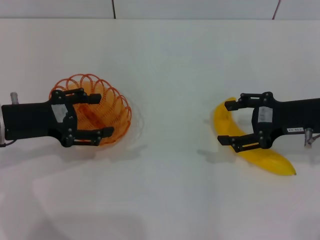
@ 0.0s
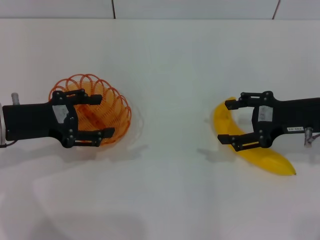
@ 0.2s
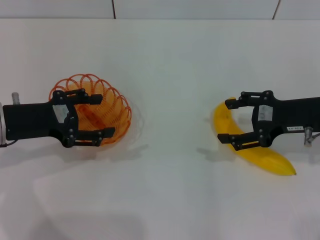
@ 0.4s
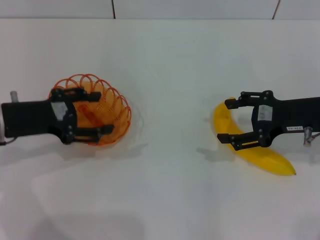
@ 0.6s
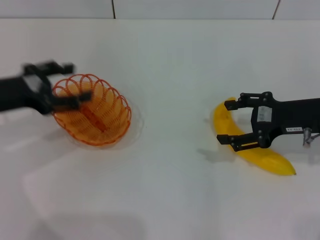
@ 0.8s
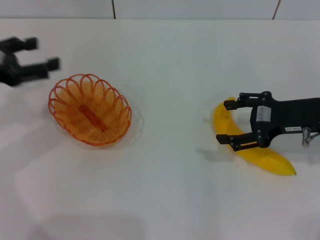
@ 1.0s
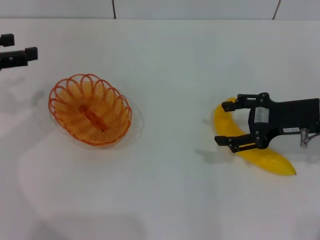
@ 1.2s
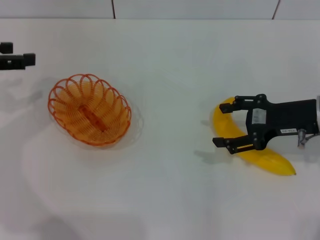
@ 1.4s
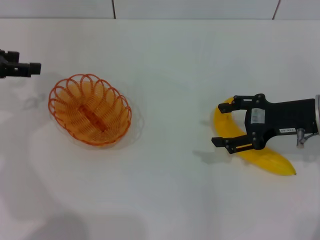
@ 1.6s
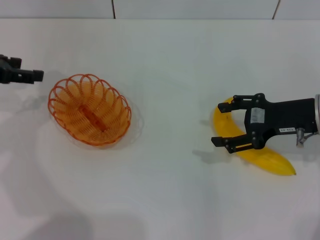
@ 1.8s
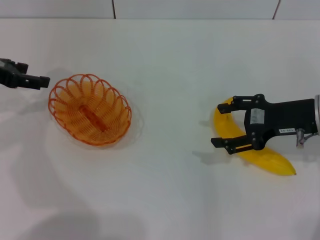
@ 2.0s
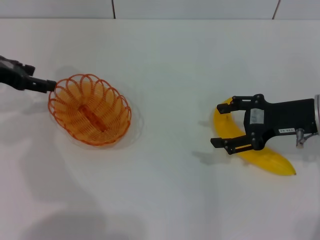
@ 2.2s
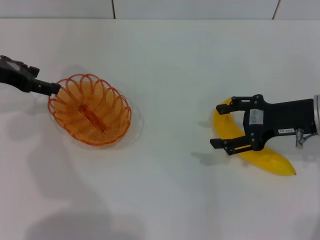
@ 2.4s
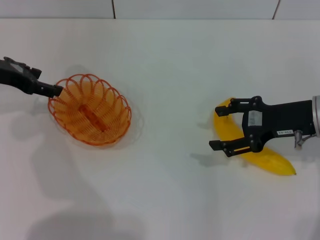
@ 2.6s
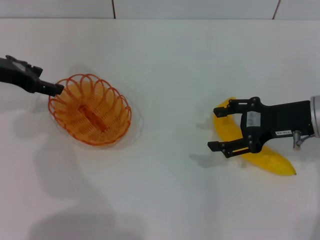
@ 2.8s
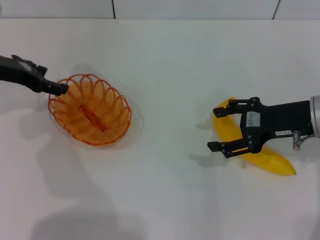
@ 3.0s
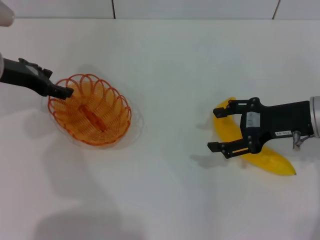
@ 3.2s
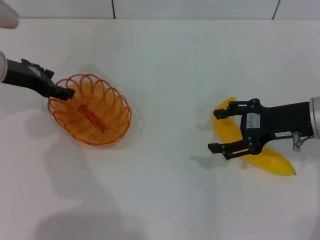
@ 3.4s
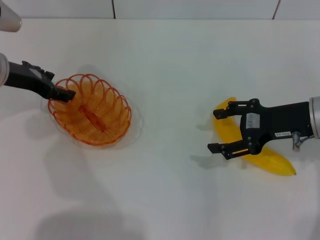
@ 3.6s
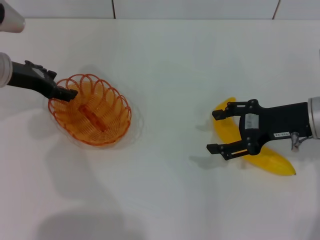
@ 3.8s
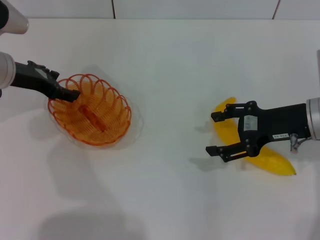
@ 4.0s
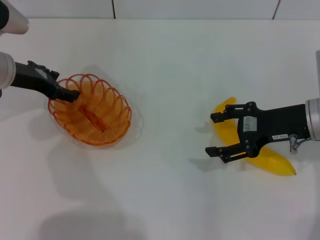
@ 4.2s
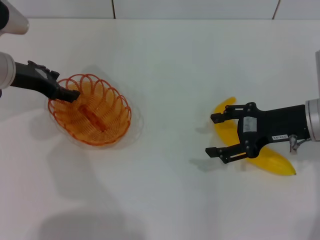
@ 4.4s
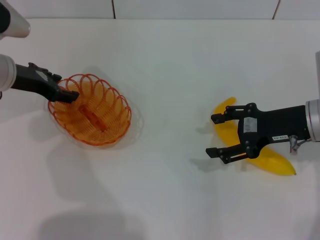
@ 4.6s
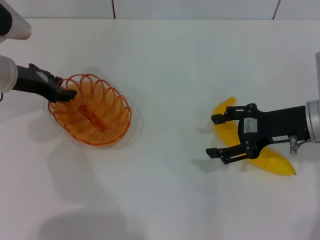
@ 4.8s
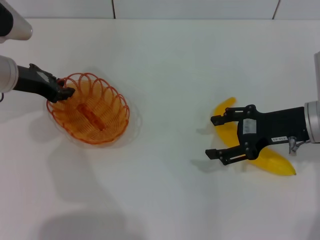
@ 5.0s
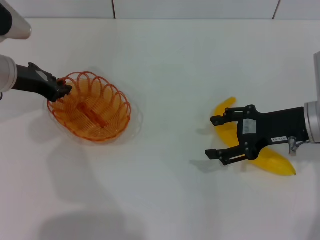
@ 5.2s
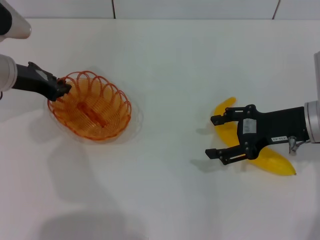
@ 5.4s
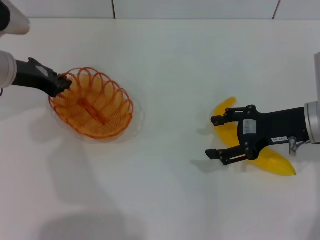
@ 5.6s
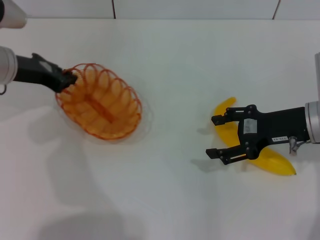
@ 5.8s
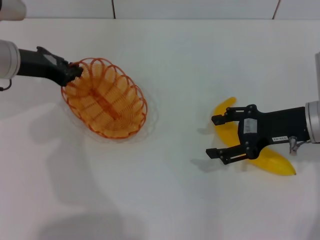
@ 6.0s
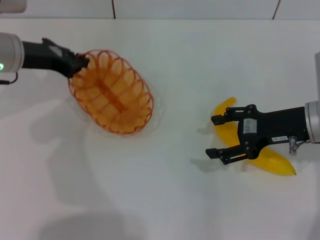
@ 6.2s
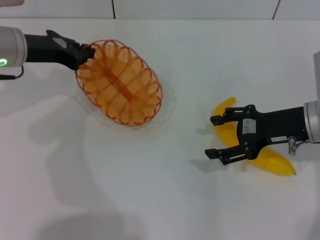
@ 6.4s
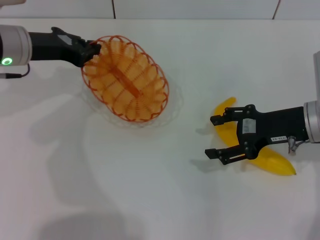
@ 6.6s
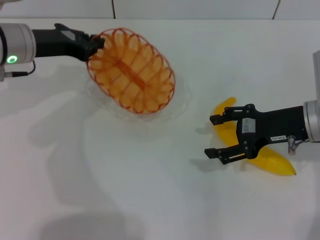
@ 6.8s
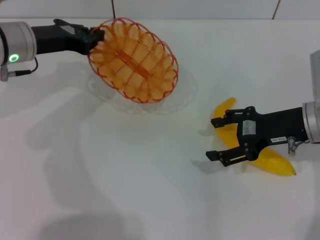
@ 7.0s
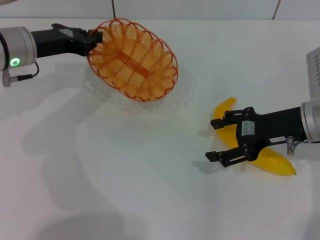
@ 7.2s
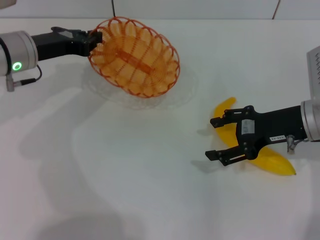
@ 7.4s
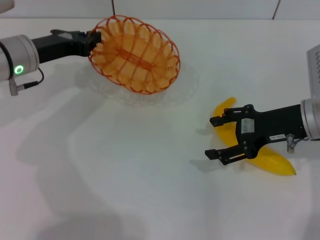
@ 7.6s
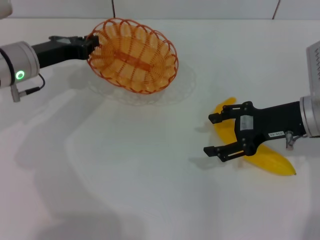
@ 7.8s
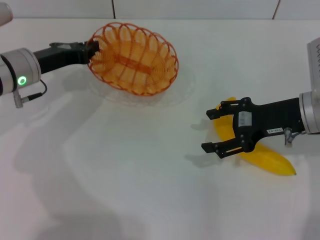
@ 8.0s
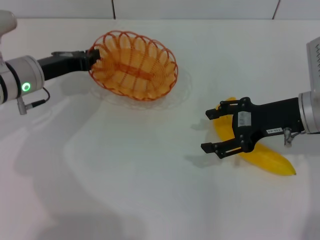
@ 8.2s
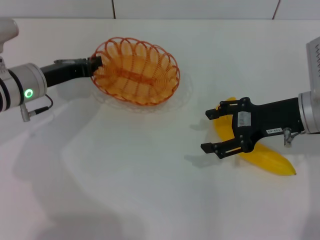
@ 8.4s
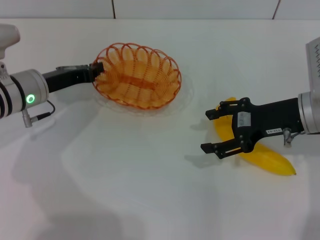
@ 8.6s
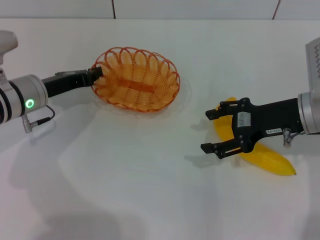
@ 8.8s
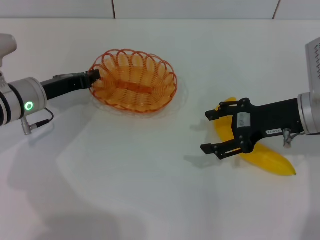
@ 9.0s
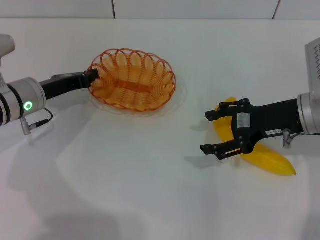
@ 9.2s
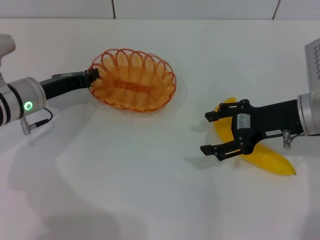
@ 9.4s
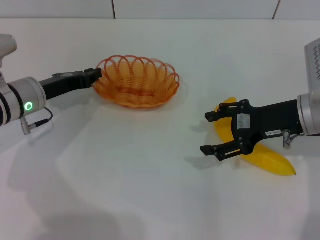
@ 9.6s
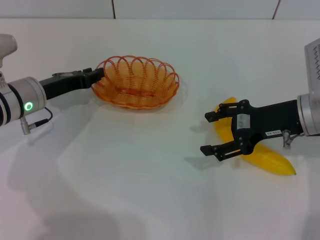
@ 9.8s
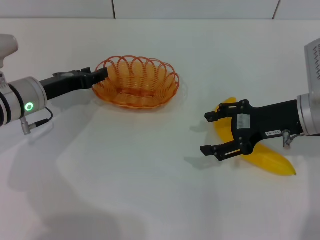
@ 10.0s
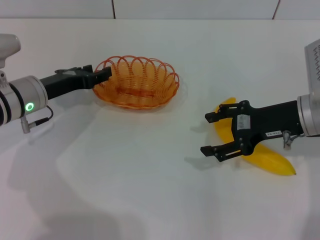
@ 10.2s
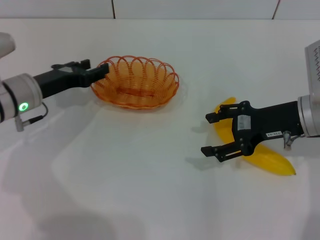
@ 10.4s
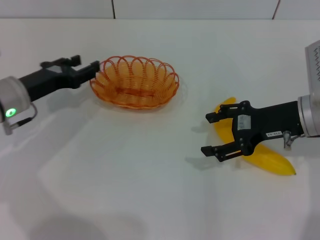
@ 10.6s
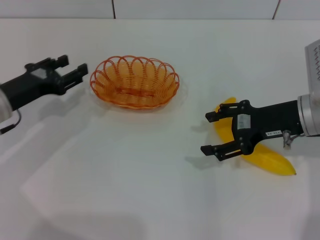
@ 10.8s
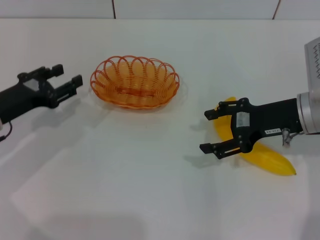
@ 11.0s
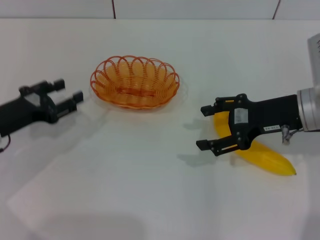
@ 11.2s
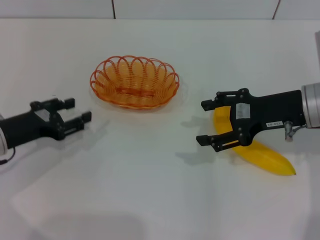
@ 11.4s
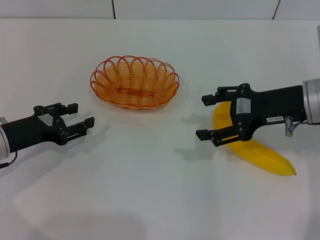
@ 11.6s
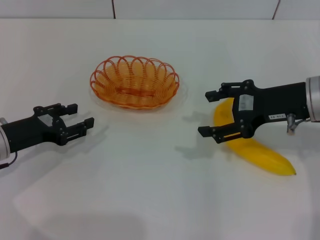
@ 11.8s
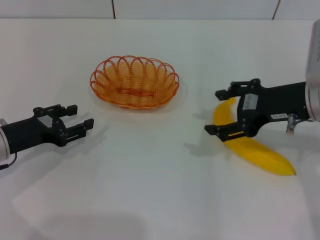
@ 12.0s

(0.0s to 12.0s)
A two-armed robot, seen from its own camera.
Step, 0.0s - 6.0s: Pick up the basket with the left gripper.
Step, 6.4s - 10.0s: Place the basket in the center of view with the left gripper.
0.0s - 1.6s: The left gripper moves to the left, upward and forward, roughly 10 cm.
1.6s - 3.0s: The left gripper goes some 5 cm to the right.
3.0s - 4.4s: The grippers move only a little.
4.4s - 6.0s: The left gripper closes.
7.6s - 9.0s: The left gripper is displaced downward by about 5 cm.
9.0s - 10.4s: The left gripper opens up.
10.4s - 12.0s: The right gripper changes place by roughly 5 cm; the left gripper heads backward, covering some 5 cm.

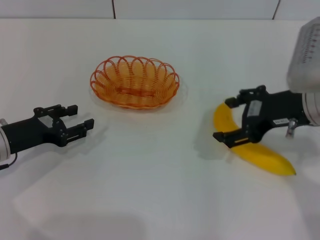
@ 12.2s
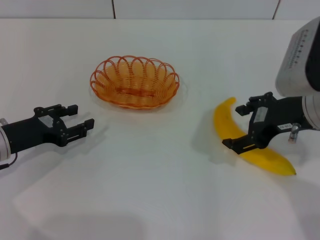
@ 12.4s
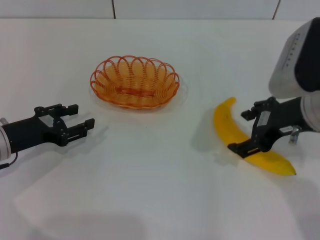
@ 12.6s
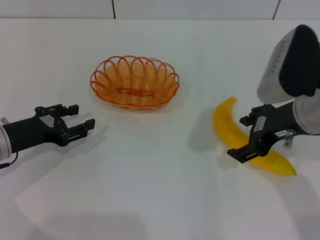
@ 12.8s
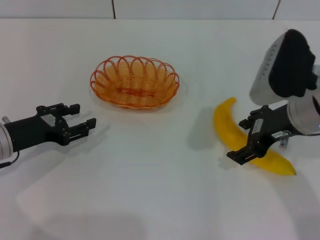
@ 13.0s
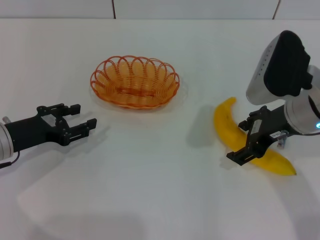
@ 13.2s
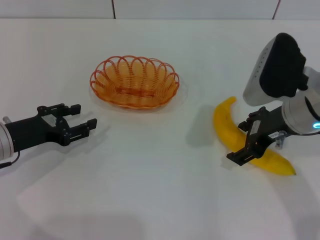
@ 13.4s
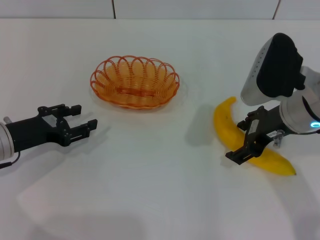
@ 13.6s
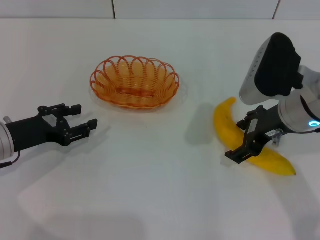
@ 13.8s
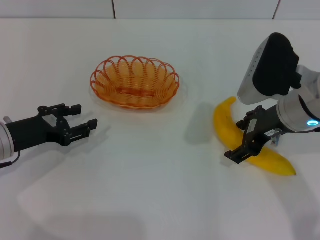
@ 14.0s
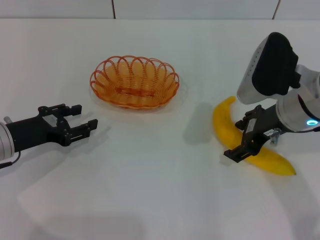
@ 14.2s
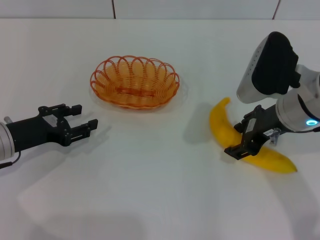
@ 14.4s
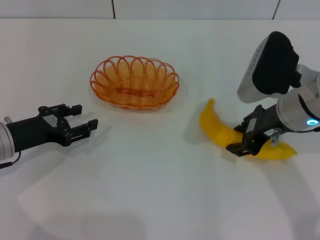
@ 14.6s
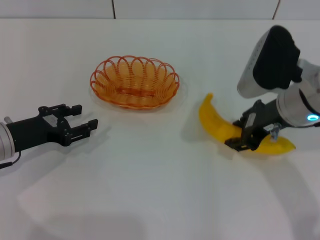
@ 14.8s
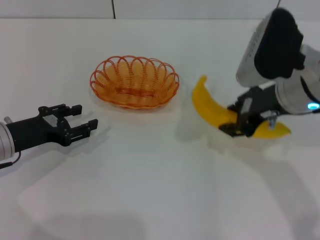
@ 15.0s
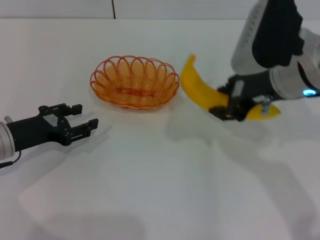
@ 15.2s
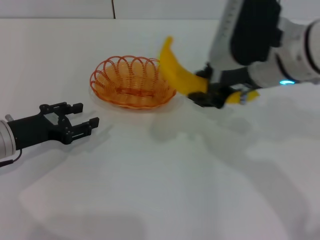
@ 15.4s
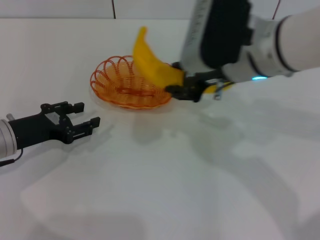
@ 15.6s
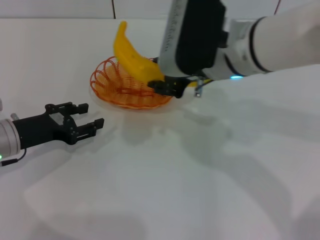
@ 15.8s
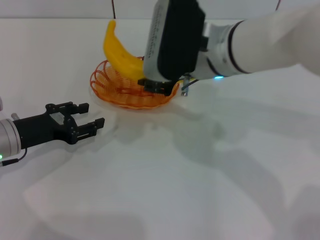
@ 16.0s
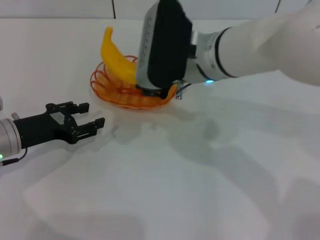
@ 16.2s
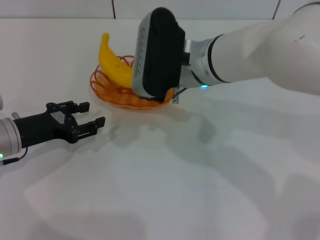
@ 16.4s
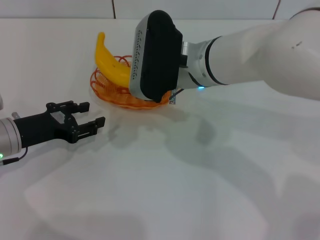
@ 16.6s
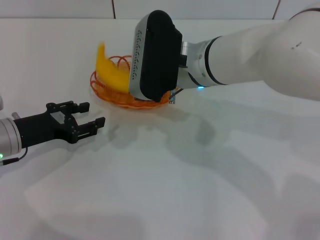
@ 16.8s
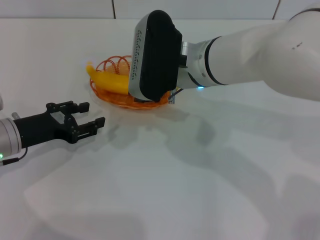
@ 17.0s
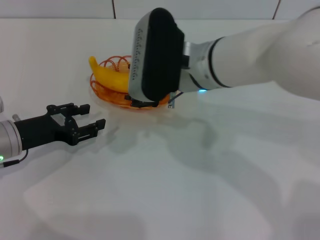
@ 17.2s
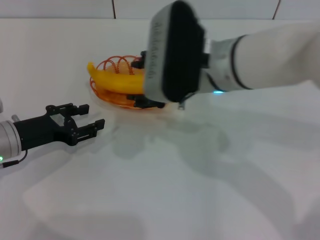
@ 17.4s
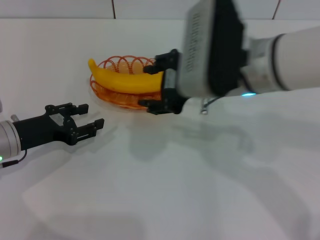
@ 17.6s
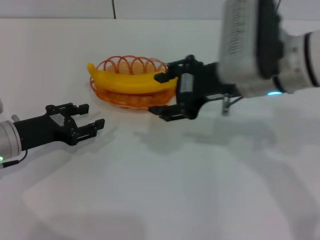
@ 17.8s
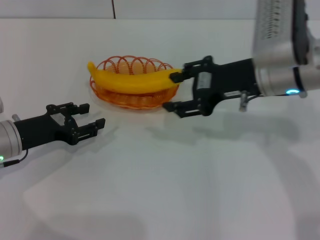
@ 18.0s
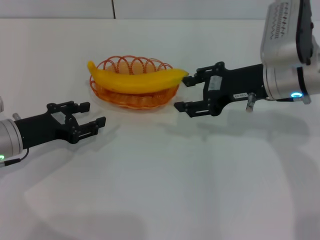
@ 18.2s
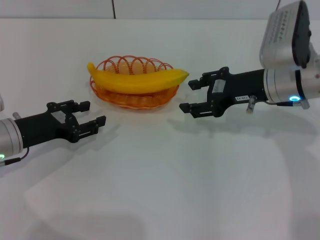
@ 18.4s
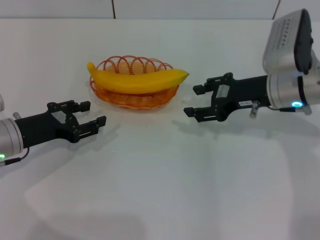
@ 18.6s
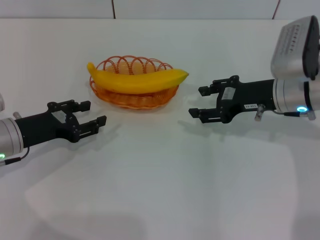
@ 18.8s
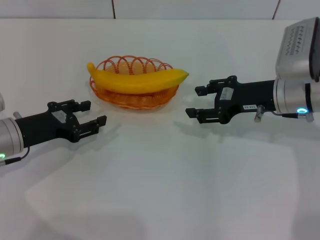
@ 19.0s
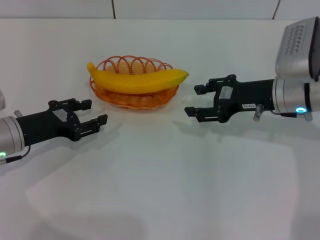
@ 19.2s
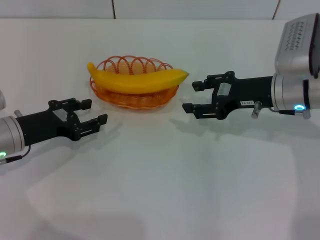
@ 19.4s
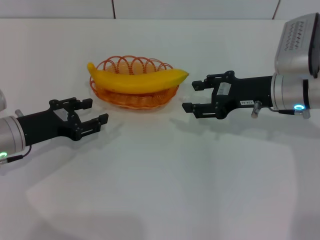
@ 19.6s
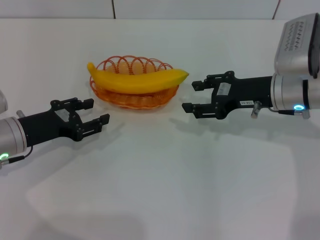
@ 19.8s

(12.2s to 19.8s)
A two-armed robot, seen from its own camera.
Step, 12.2s - 15.4s: Pick up the banana with the right gripper.
Step, 15.6s - 17.6s: Place the banana into the basket with the right gripper.
12.2s - 13.8s: The grippers make only small movements.
13.8s - 15.2s: The right gripper moves upward, approximately 5 cm, and closes.
15.2s - 16.8s: The right gripper moves to the left, approximately 10 cm.
16.8s - 18.2s: The right gripper moves to the right, approximately 15 cm, and opens up.
18.2s - 19.8s: The grippers stay close to where they were, moving slightly.

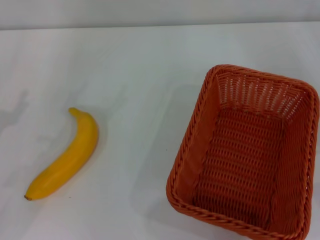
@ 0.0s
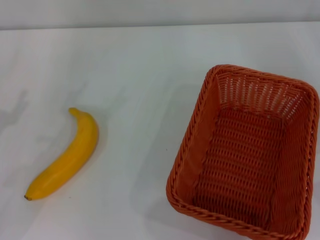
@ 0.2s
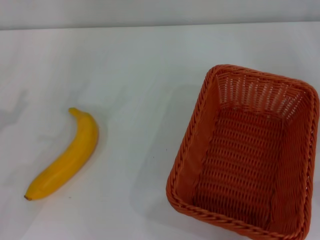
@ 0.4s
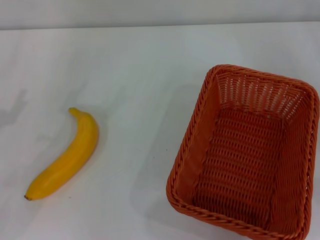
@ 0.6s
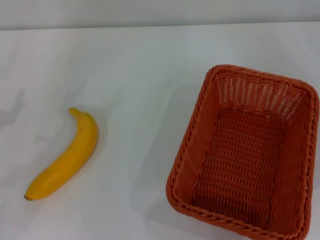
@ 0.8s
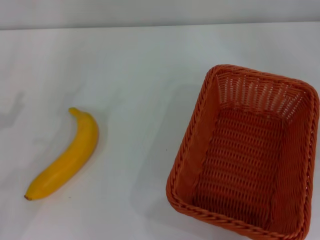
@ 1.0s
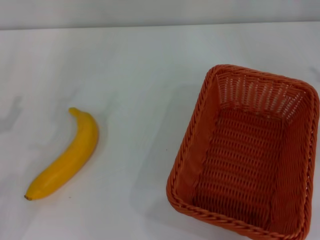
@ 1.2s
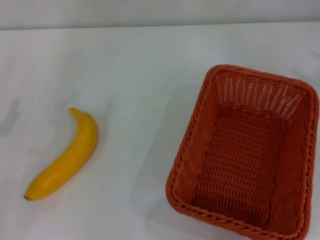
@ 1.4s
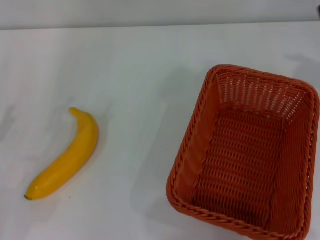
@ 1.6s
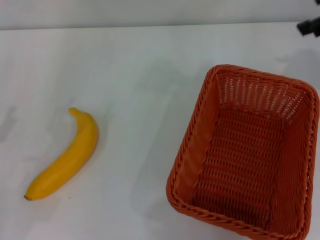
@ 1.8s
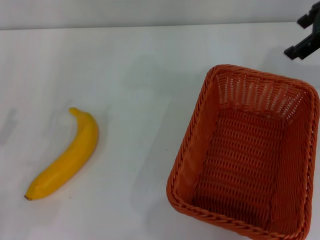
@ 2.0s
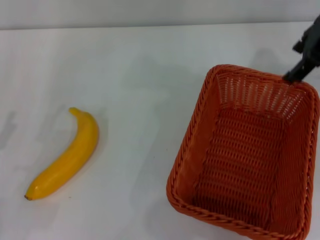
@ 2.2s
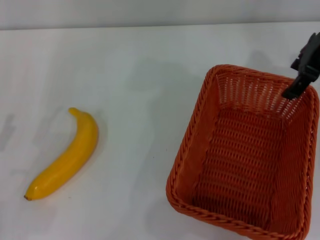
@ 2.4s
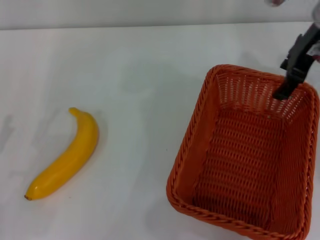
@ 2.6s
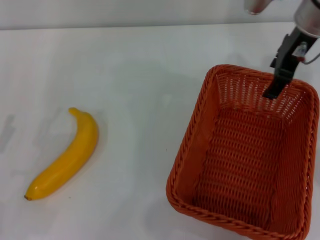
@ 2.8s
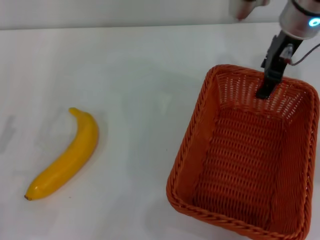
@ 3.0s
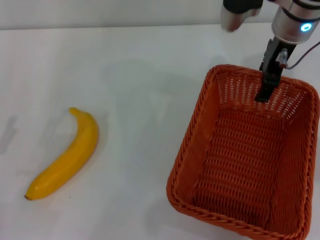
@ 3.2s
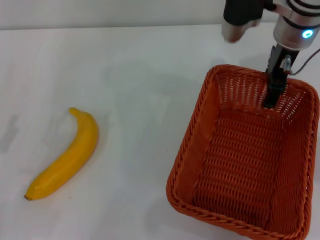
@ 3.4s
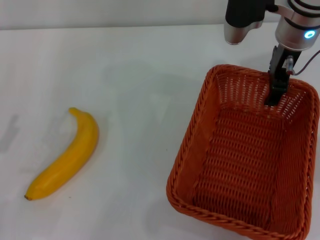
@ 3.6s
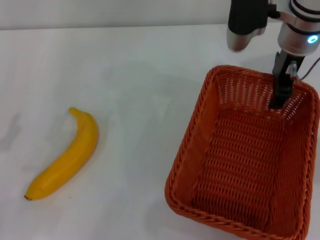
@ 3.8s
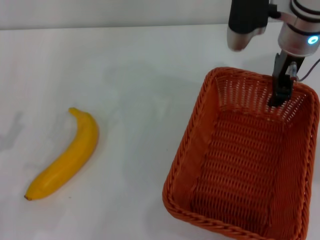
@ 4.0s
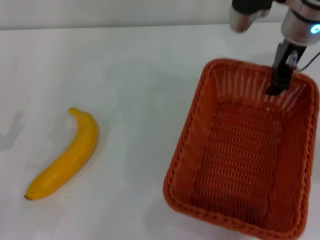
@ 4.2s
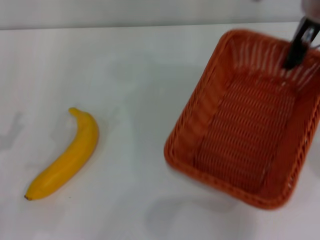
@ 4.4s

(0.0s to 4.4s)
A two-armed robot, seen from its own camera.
1.4s - 3.0s: The right gripper goes some 25 cm to the left and forward.
3.0s - 4.4s: The right gripper closes.
